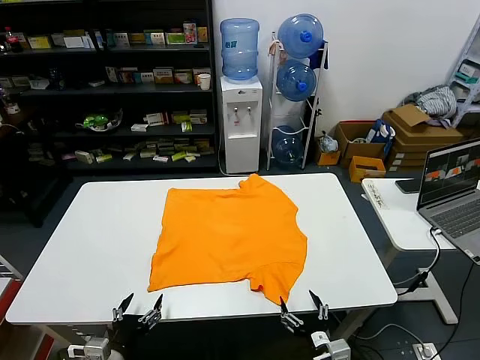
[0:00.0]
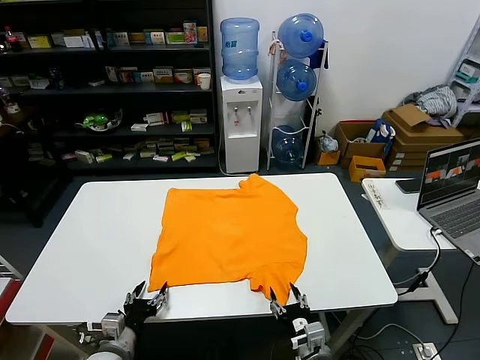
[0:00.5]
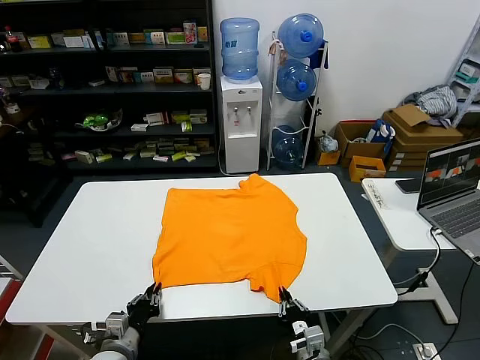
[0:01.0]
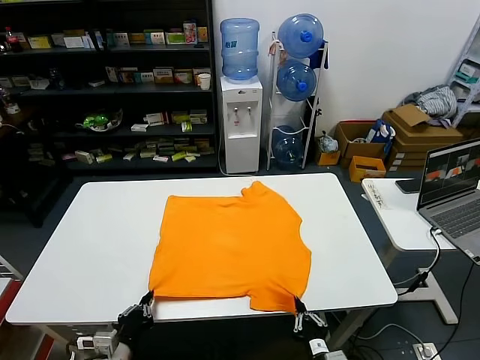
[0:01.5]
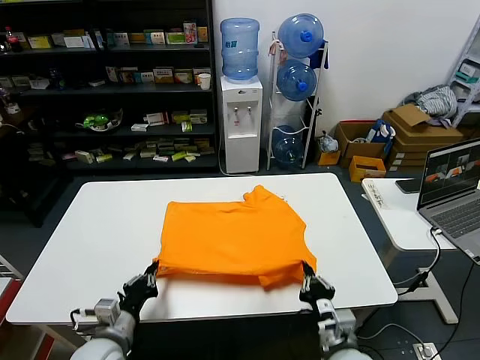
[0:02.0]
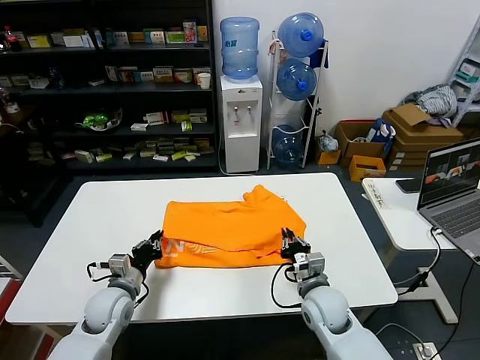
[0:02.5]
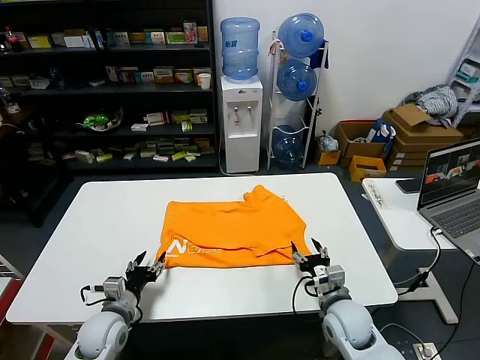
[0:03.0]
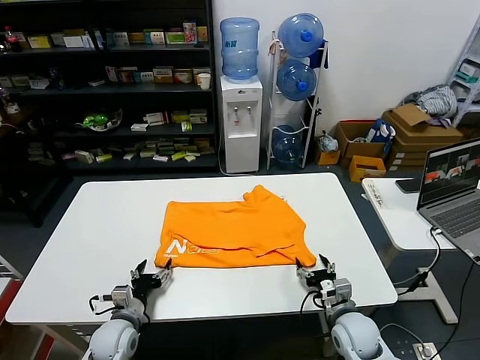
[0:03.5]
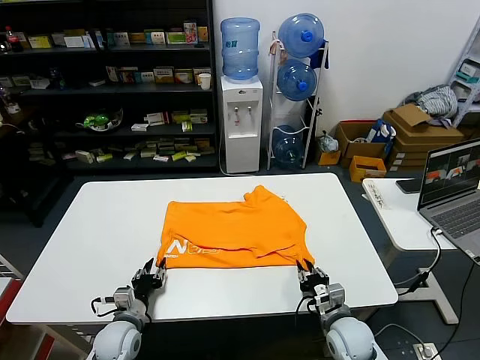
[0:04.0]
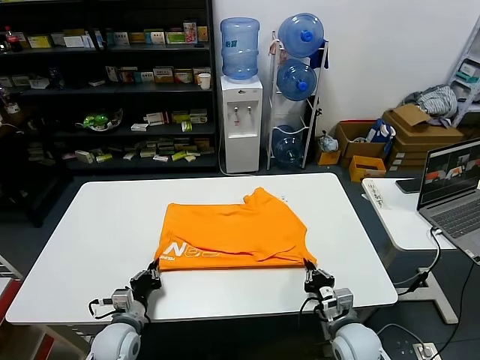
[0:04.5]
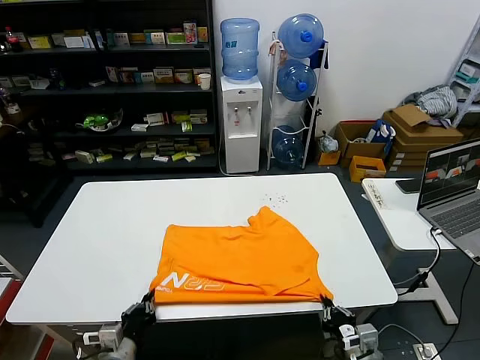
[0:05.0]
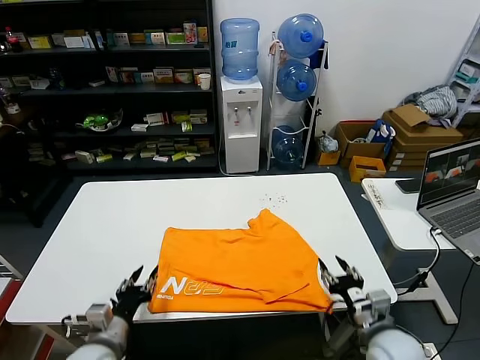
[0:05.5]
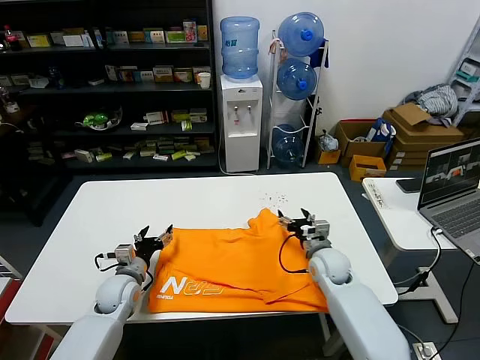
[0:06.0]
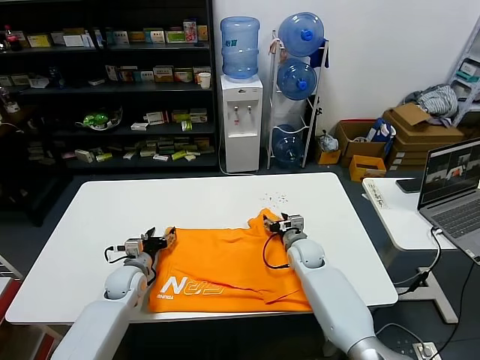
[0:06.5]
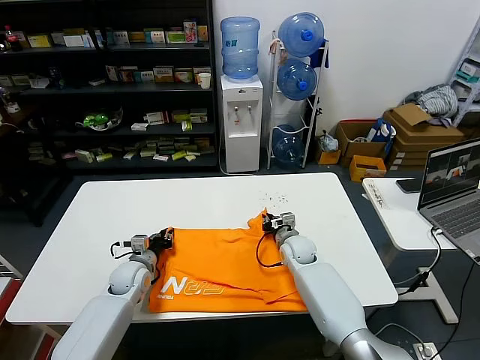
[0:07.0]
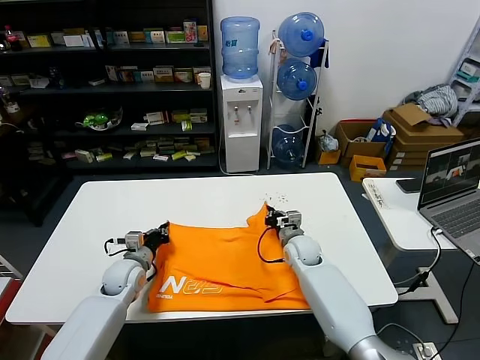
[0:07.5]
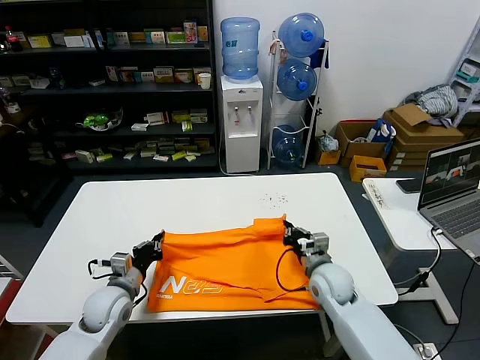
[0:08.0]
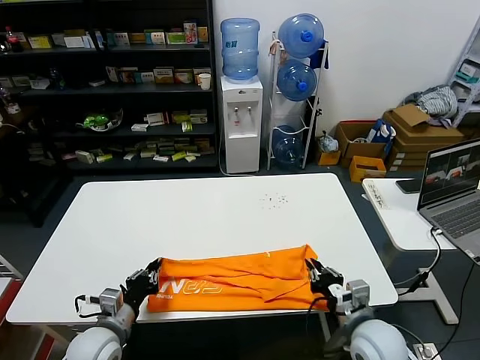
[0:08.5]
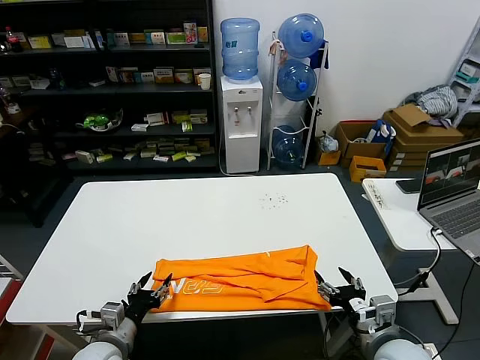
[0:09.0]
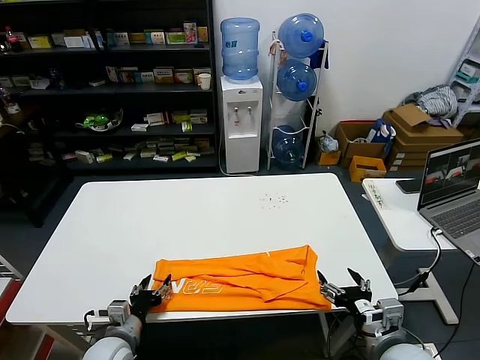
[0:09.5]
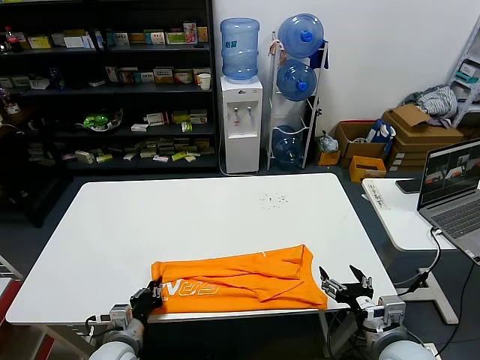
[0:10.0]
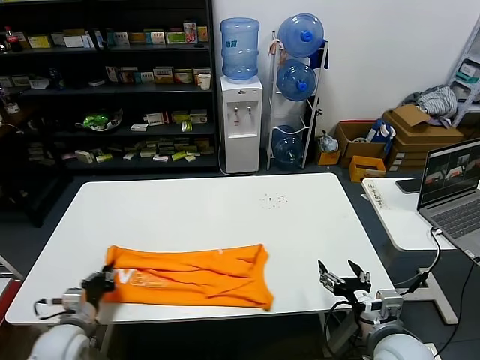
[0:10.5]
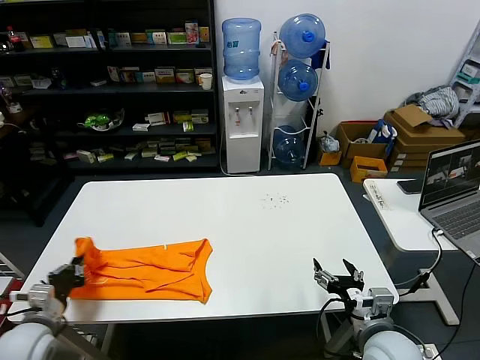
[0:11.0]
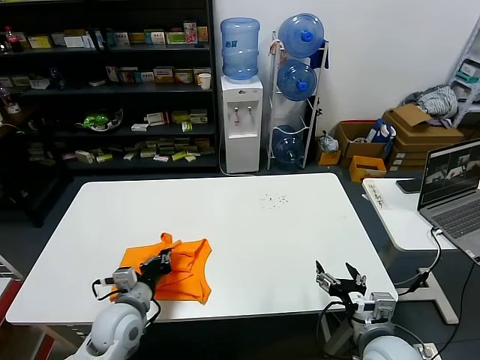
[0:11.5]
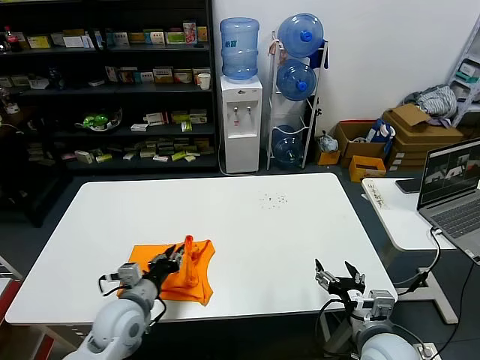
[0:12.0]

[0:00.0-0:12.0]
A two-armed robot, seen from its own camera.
Task of the whole recording: fold and organize the clothes.
Step, 0:00.0 to 0:01.0: use both grippers simultaneously to clamp the lower edge of the clothing fabric.
Step, 0:01.5 to 0:02.5: use both grippers to drag the lower edge of the fabric forward and fold it over the upper edge.
Step, 0:03.0 to 0:05.0: Drag the clothes downward with both gripper.
Step, 0:05.5 to 0:07.0: use both grippers simultaneously to clamp the upper edge of the clothing fabric.
Step, 0:07.5 to 0:08.5: use both grippers to drag the upper edge of the fabric backward and fold it over the lower edge.
Step, 0:09.0 to 0:10.0: use the left gripper to clamp the left edge of the fabric.
Step, 0:10.5 to 0:12.0: use the left gripper to drag the left edge of the fabric to the left and folds it over the right edge.
0:02.0 to 0:04.0: Both grippers travel together downward and forward, approximately 10 cm. The right gripper opens, then closes again. Meanwhile the left gripper opens its fingers.
0:04.0 to 0:06.0: The right gripper moves forward, about 15 cm, and opens, while the left gripper goes some 10 cm forward and upward, and opens up.
0:06.0 to 0:08.0: The right gripper is displaced backward by approximately 5 cm, and closes its fingers. The left gripper closes.
0:08.0 to 0:10.0: The left gripper heads backward and downward, covering some 10 cm, and opens, then closes again, while the right gripper heads backward, covering some 20 cm, and opens its fingers.
0:10.0 to 0:12.0: The left gripper moves upward and forward, roughly 10 cm, and reaches roughly 20 cm to the left, then returns.

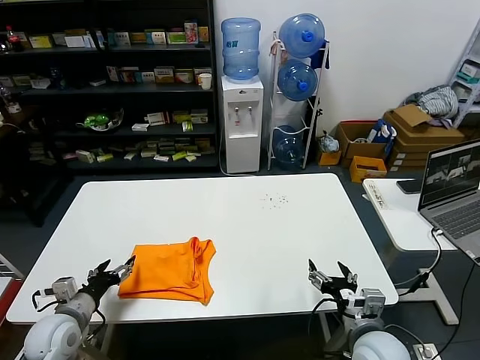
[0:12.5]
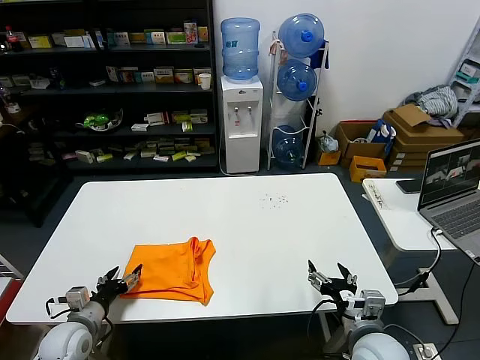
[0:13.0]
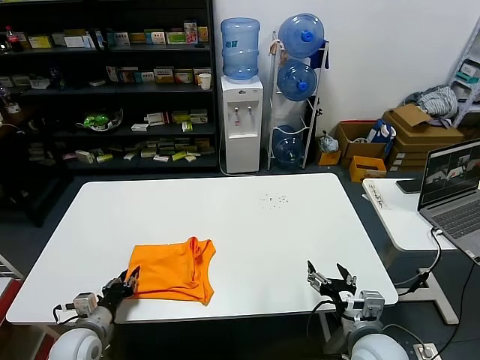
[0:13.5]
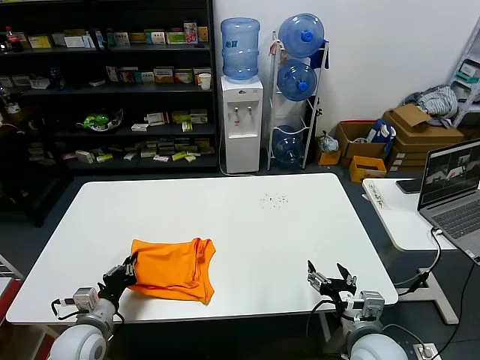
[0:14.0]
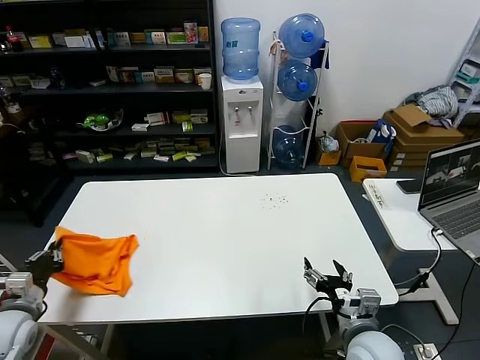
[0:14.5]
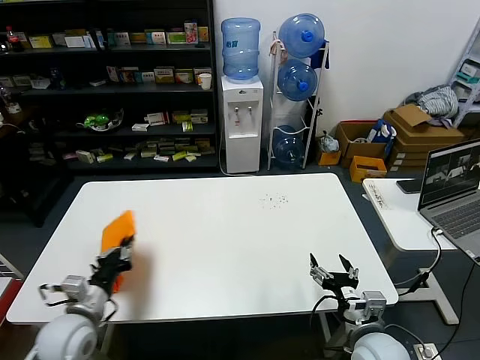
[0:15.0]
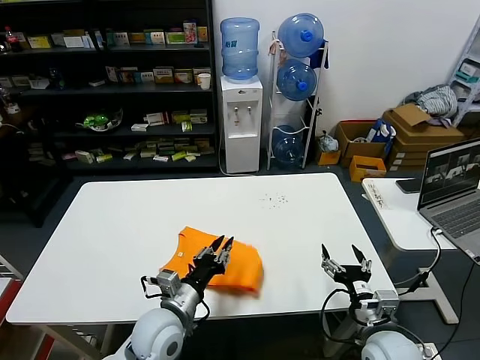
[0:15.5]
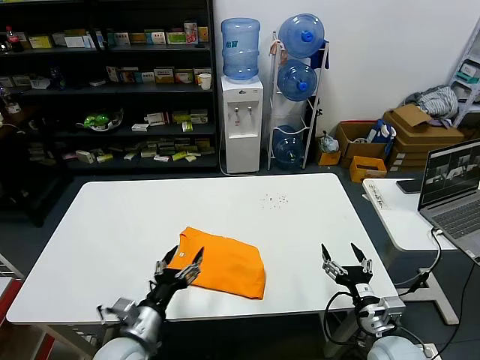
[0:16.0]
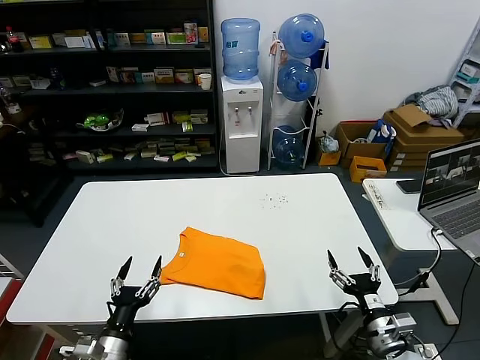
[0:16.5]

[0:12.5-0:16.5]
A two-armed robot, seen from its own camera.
Task of the whole recording: fold and organize the clothes.
Step, 0:12.5 to 0:15.0: Flip the folded clothes over with left gripper.
0:12.5 to 0:14.5: The left gripper goes roughly 5 cm to the left, and closes up.
0:14.5 to 0:16.5: The right gripper is displaced to the right by roughly 5 cm, while the left gripper heads to the right and backward, covering approximately 20 cm, and opens its fingers.
